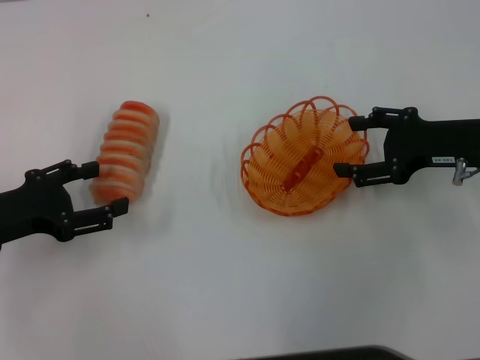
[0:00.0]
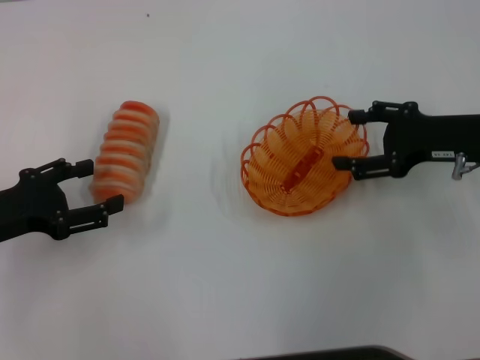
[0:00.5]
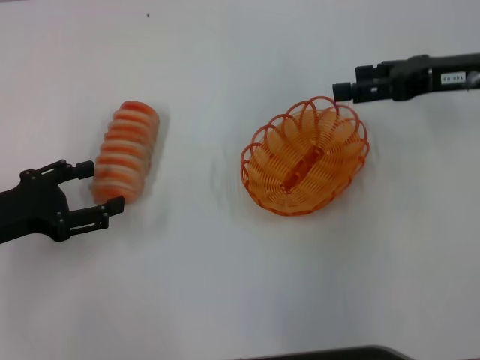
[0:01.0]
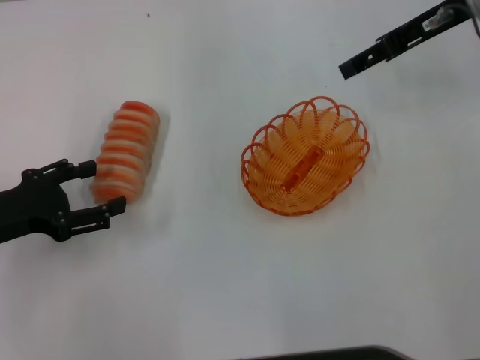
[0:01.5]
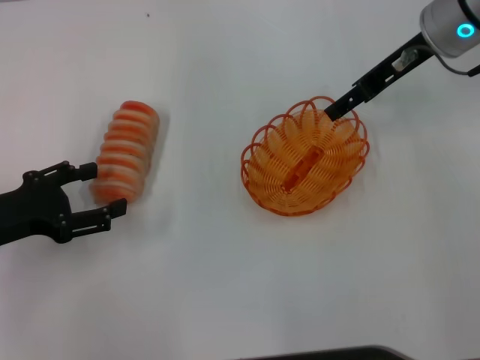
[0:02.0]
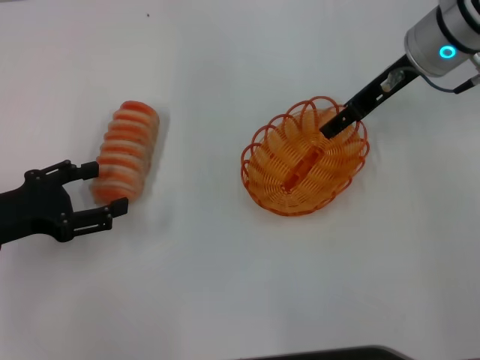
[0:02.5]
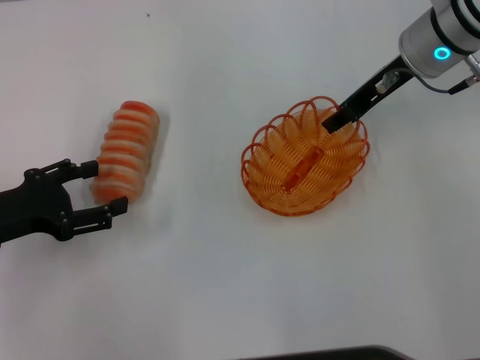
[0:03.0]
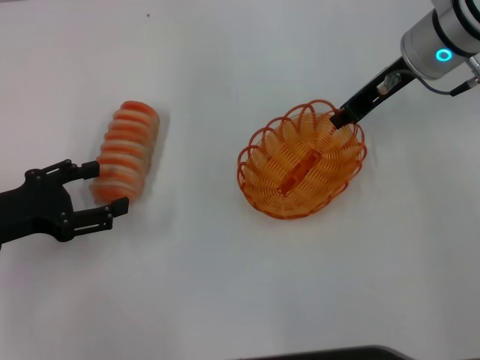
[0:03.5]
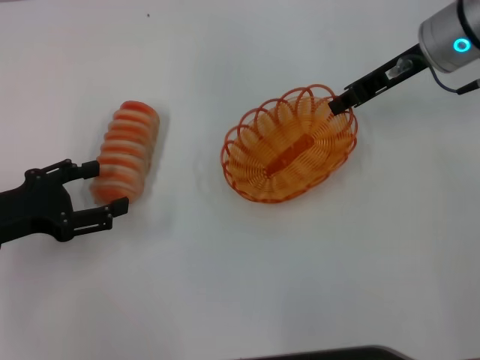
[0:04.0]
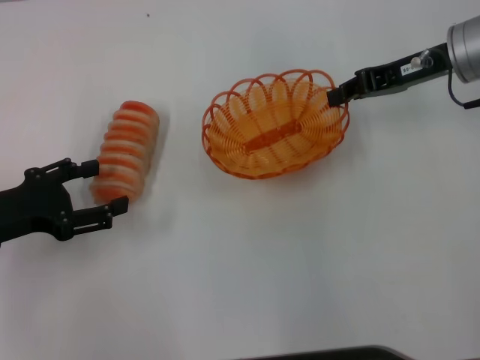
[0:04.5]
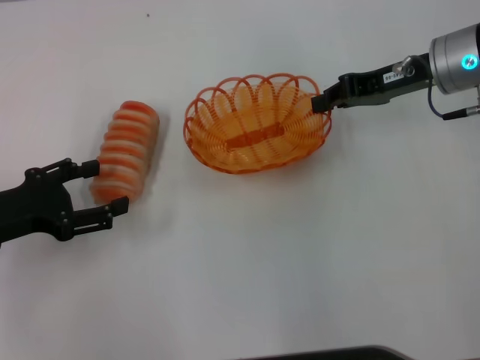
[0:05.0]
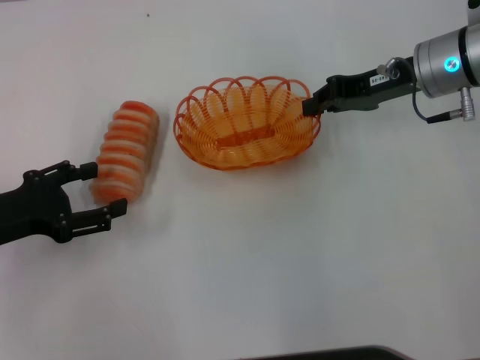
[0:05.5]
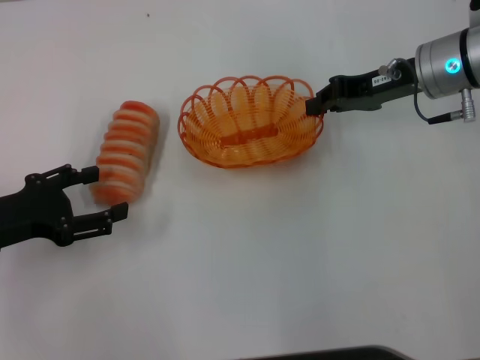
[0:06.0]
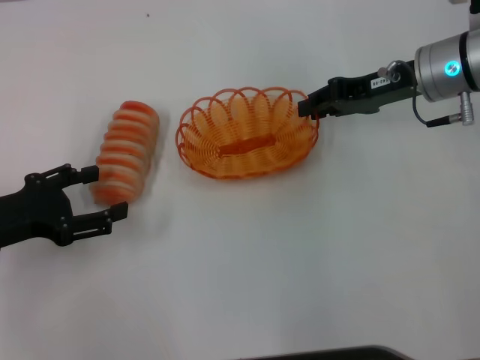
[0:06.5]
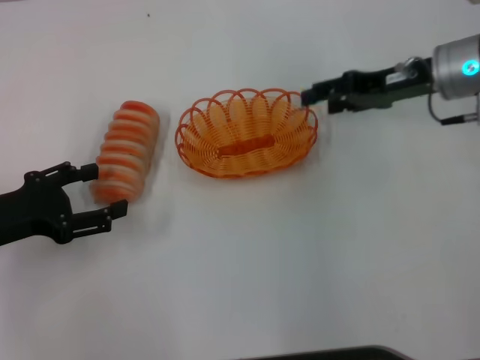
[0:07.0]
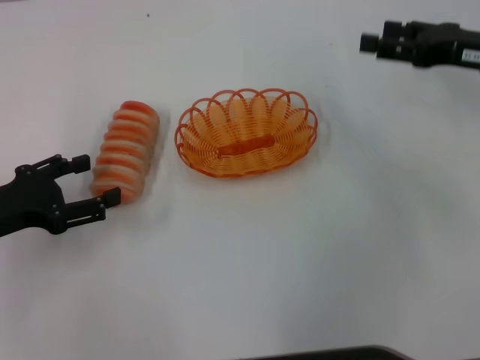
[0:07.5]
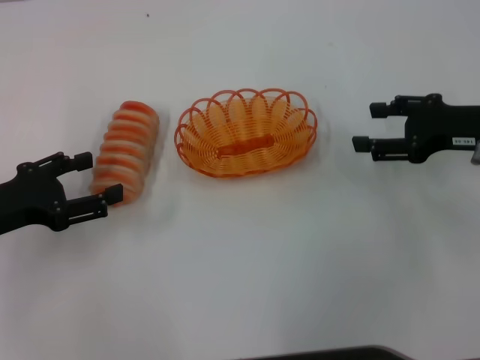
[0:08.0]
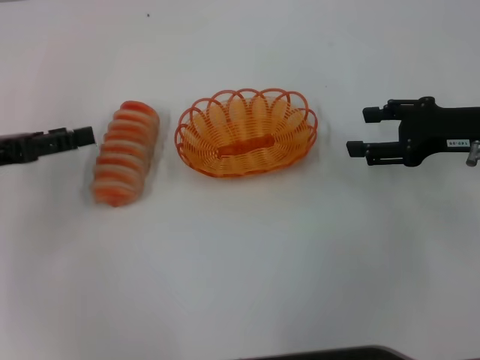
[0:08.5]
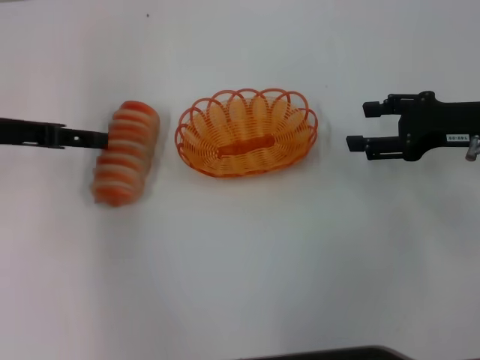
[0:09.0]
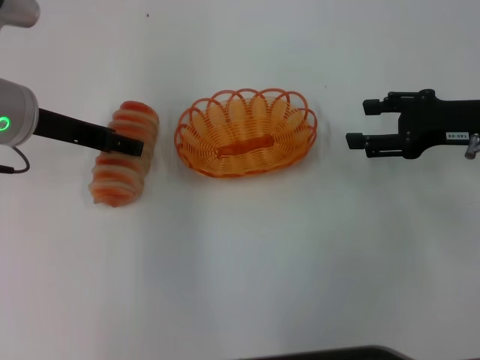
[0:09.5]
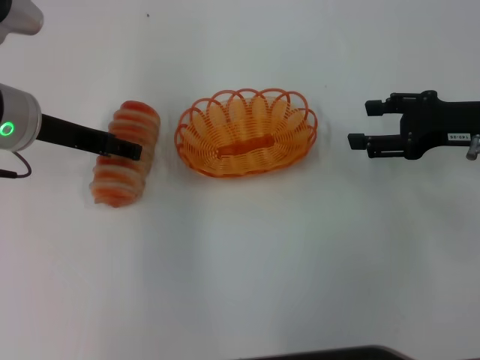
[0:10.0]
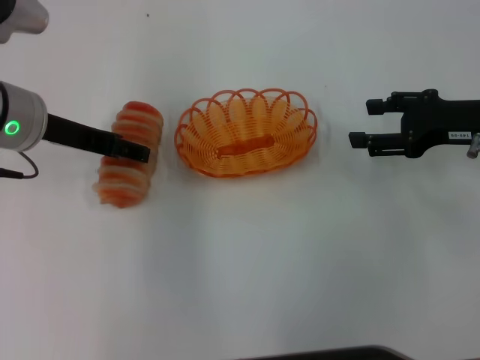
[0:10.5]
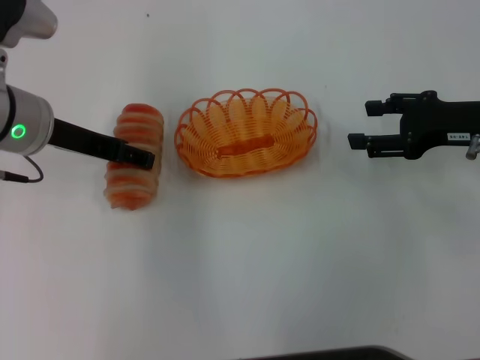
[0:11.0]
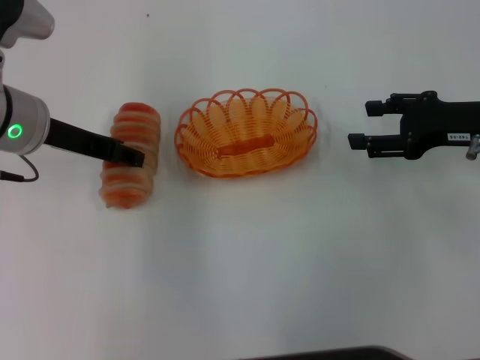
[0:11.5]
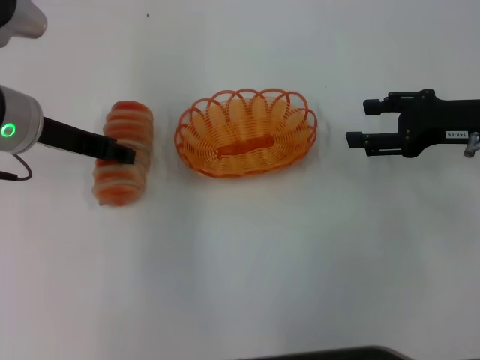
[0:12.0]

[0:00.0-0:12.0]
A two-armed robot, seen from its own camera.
Step, 0:00.0 to 0:03.5: Pick up the basket with the right gripper.
Step, 0:04.0 to 0:06.5: Place the basket in the center of view with the right gripper.
0:00.0 to 0:02.0: The right gripper is displaced forward, upward and to the left by roughly 15 cm.
0:02.0 to 0:04.0: The right gripper closes up.
0:06.0 to 0:08.0: The right gripper travels backward and to the right by some 10 cm, and opens up.
0:08.0 to 0:10.0: The left gripper shifts approximately 15 cm forward, to the right and upward.
0:10.0 to 0:12.0: The left gripper closes up.

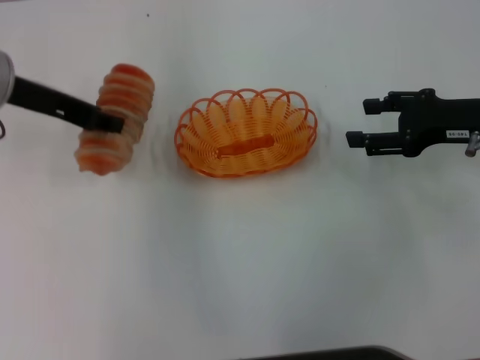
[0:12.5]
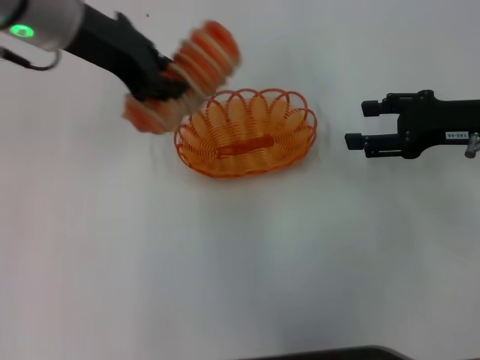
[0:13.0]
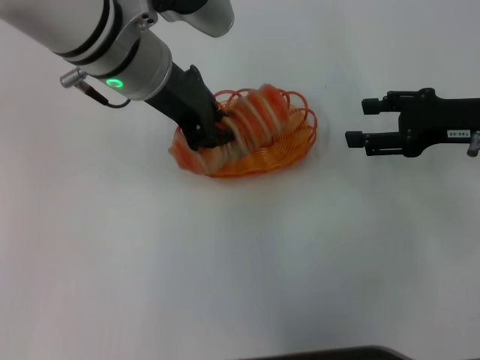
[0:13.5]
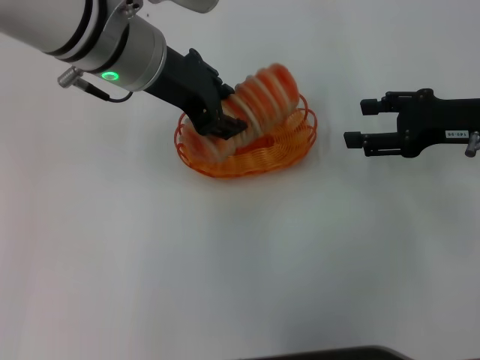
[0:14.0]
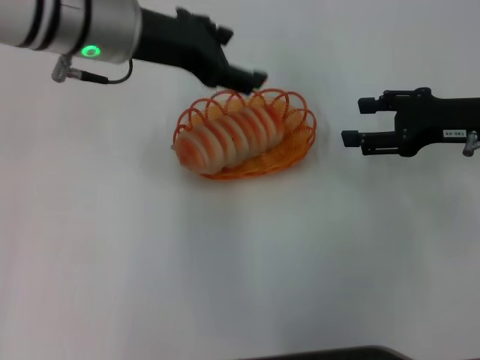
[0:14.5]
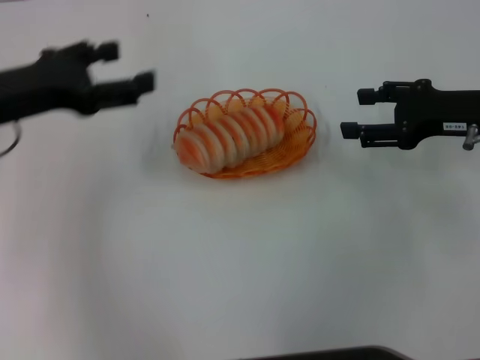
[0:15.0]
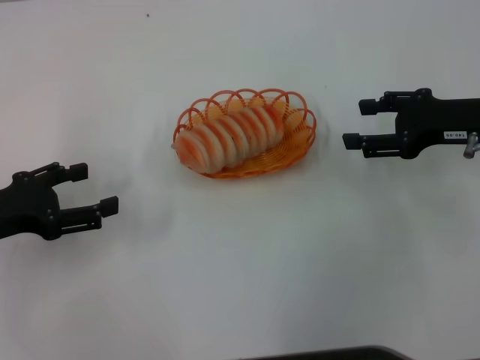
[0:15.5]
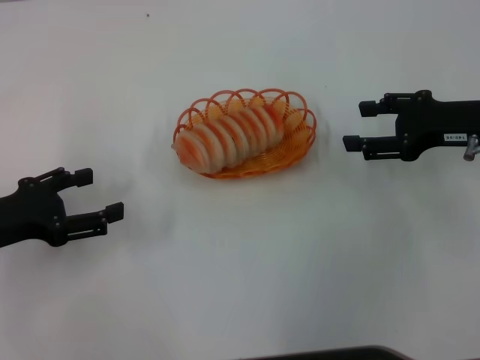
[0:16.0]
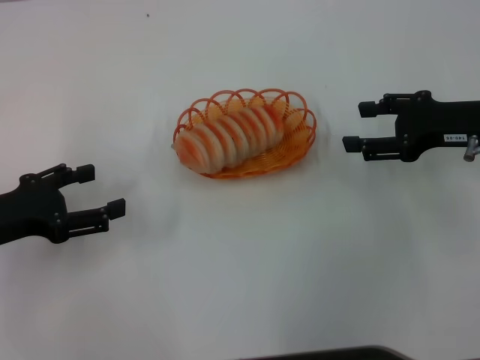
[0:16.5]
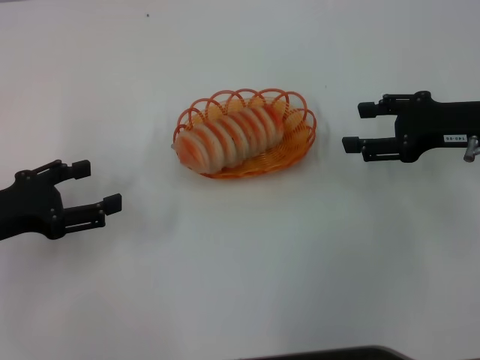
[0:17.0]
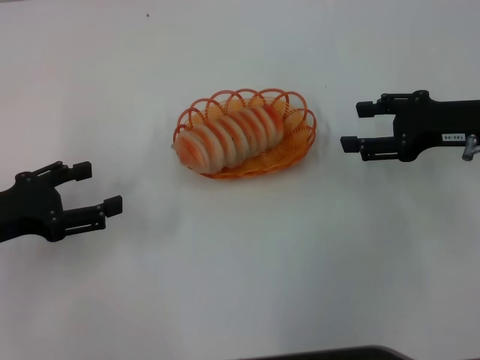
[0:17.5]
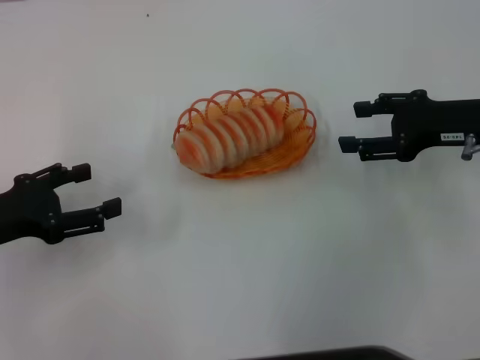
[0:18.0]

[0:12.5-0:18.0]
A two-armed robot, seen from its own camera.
Step, 0:12.5 to 0:14.5: Place the long bread into the basket with the left gripper.
0:12.5 to 0:14.5: The left gripper heads to the right, covering roughly 10 cm, and opens.
0:14.5 to 0:16.0: The left gripper goes roughly 25 cm to the left, downward and backward.
0:16.0 to 0:18.0: Both grippers stay put.
